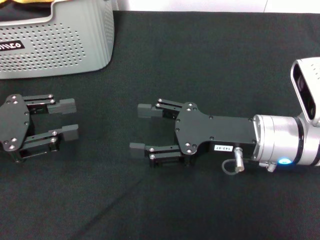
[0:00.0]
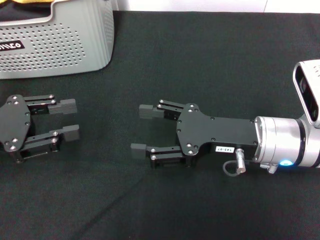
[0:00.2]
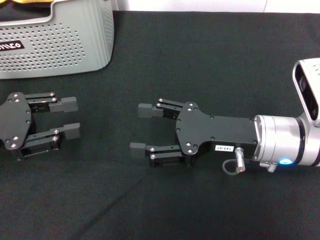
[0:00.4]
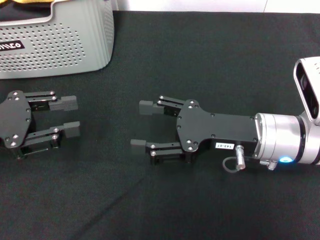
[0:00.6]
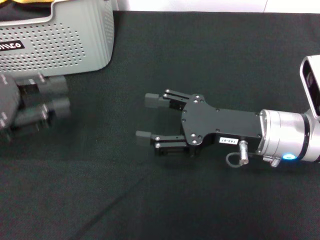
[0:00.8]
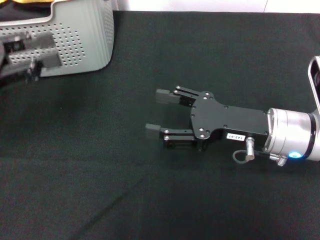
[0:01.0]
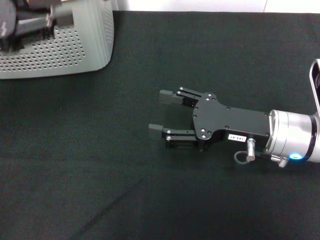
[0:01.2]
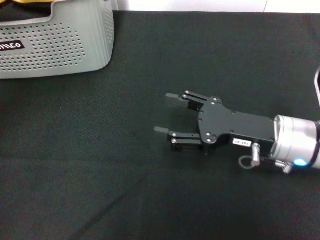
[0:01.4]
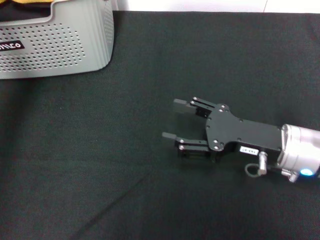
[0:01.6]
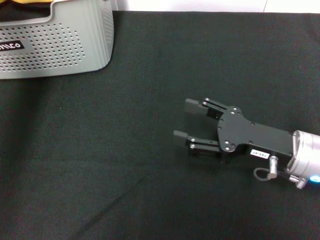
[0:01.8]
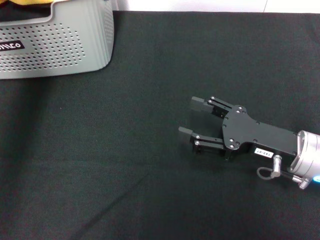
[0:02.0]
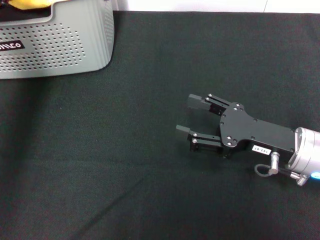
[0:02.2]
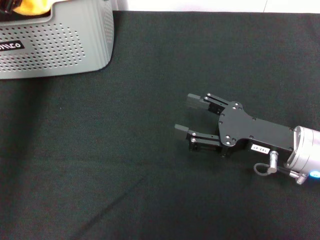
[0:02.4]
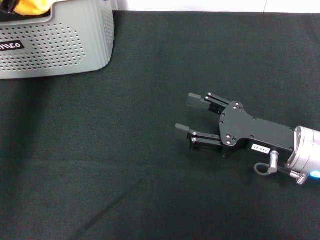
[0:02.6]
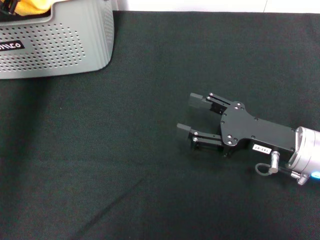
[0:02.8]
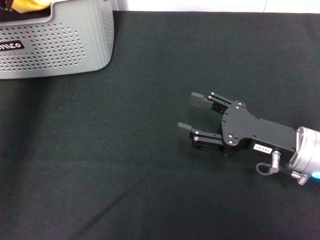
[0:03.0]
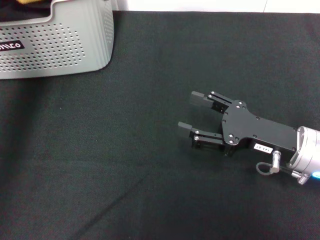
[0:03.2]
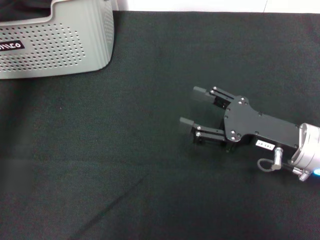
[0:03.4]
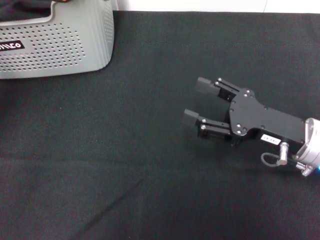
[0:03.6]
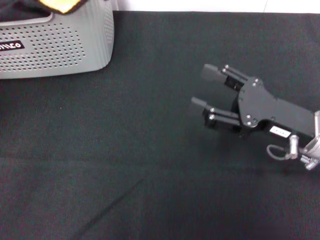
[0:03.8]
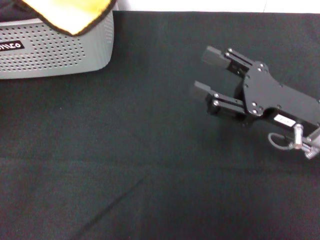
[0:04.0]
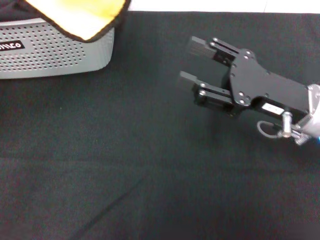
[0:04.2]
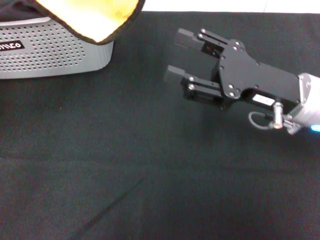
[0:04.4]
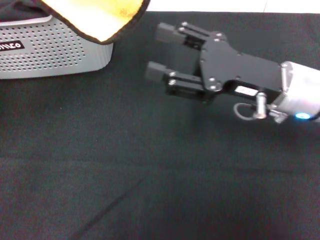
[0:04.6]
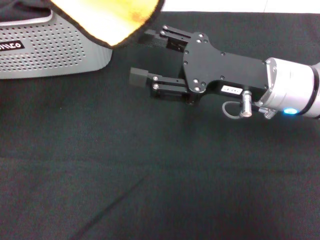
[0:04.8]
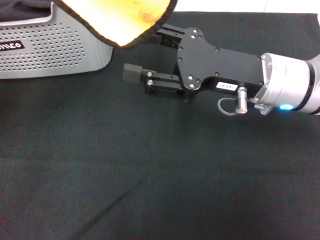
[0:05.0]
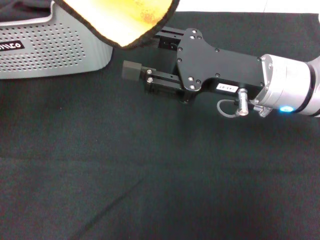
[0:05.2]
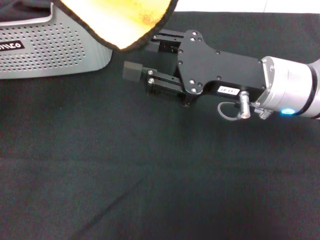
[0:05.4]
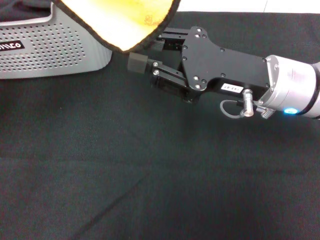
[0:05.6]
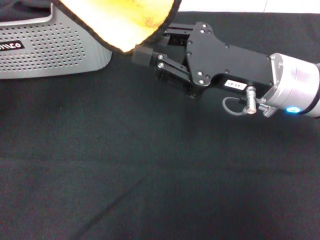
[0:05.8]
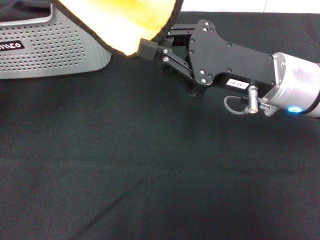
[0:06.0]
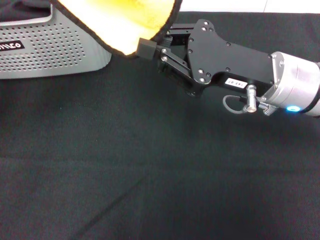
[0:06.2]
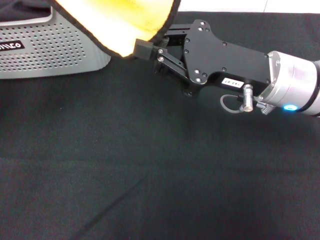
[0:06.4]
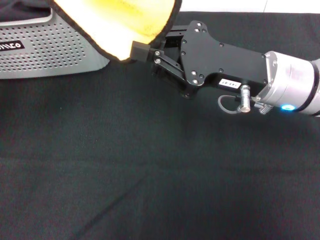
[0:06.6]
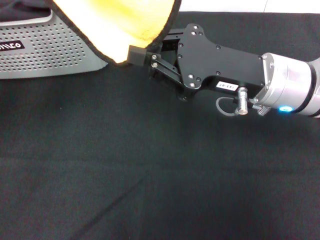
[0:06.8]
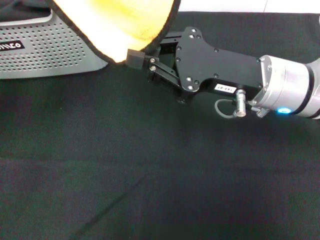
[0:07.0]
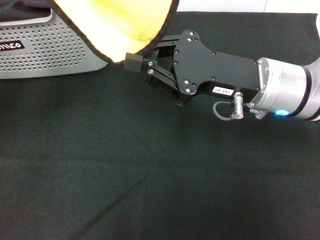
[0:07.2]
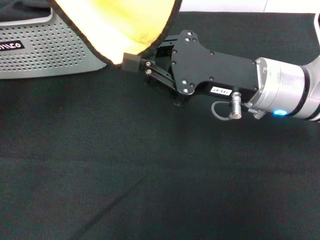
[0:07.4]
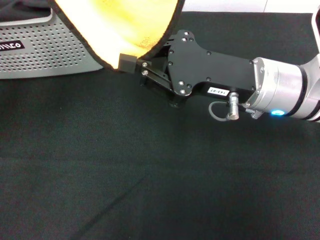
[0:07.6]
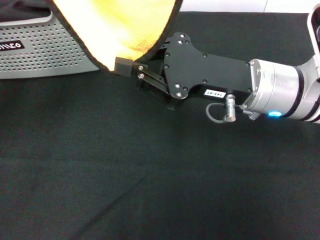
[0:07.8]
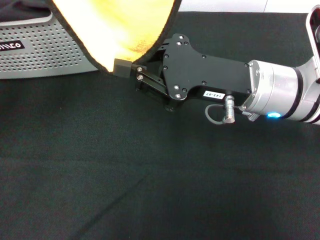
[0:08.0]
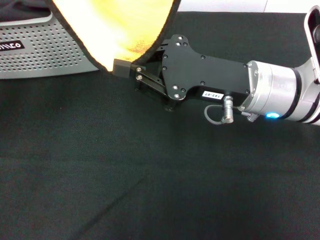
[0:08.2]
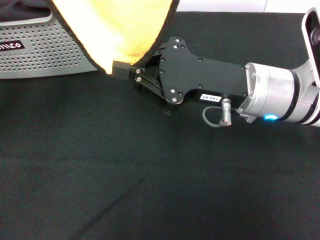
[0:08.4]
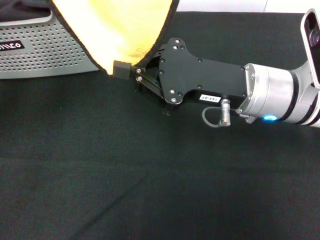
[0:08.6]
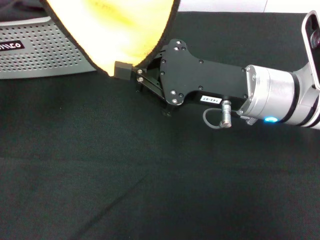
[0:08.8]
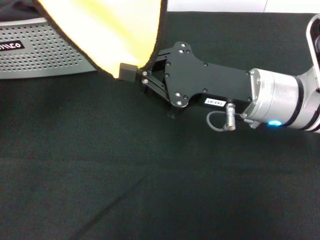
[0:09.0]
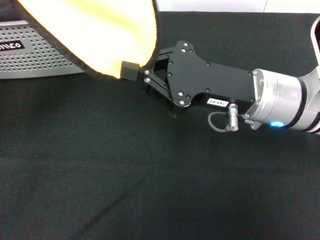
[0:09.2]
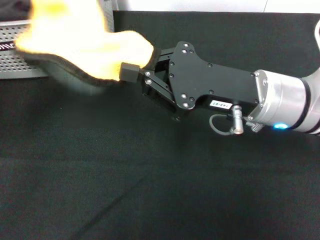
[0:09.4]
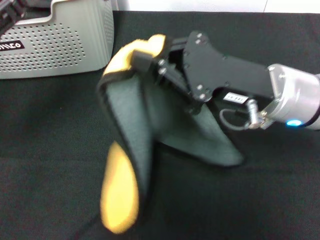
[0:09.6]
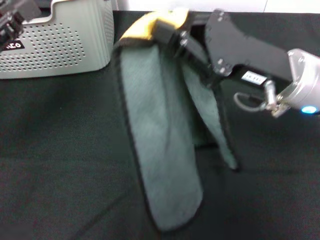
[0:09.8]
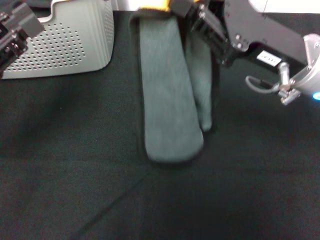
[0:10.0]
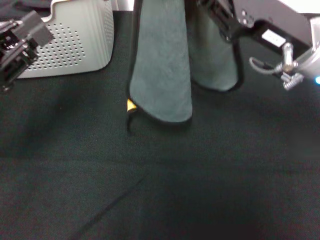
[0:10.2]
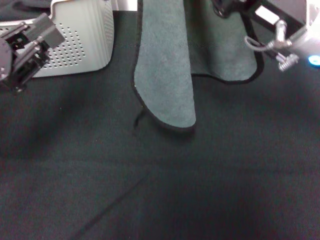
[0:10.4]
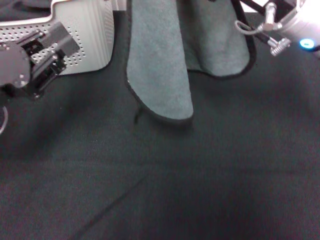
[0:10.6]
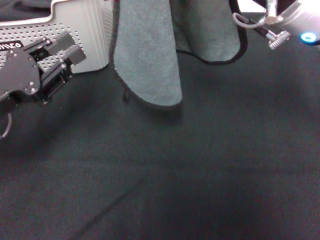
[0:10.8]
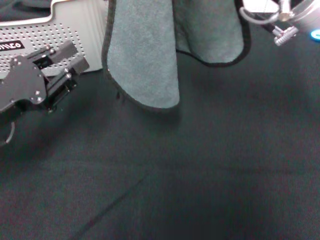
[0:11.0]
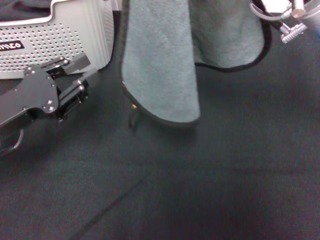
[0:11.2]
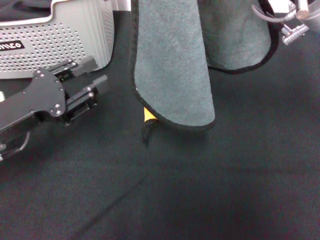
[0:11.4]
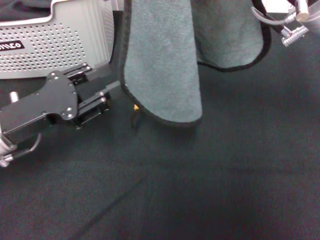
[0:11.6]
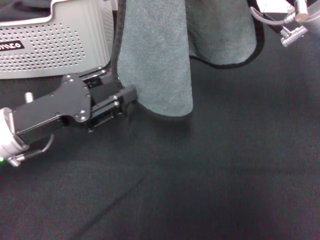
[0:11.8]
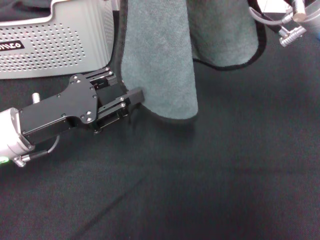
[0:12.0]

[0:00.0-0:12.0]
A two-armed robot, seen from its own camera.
Task of the whole recording: pick up the towel from the storage box and lay it flat on the black tablecloth.
Step, 0:00.0 to 0:02.6: Pick up a towel with the left gripper.
Step, 0:02.8 to 0:08.8: Spread the towel flat with the left gripper.
0:00.0 to 0:01.6: The left gripper goes about 20 cm upward and forward.
0:01.6 to 0:03.0: The left gripper closes its fingers.
0:03.0 to 0:04.4: The left gripper shifts some 10 cm backward. The right gripper shifts about 5 cm upward.
0:04.4 to 0:06.0: The right gripper closes.
0:06.0 to 0:09.0: The grippers make only small movements.
0:09.0 to 0:10.4: The right gripper moves roughly 5 cm, while the left gripper travels downward by about 10 cm, and opens its fingers.
0:10.4 to 0:12.0: The left gripper moves to the right, about 5 cm.

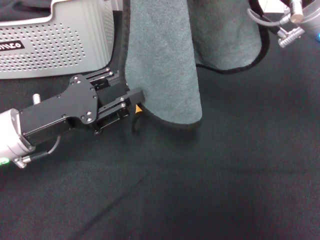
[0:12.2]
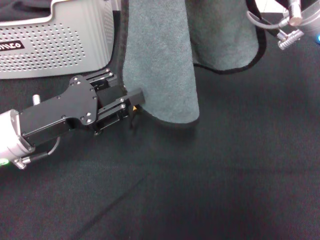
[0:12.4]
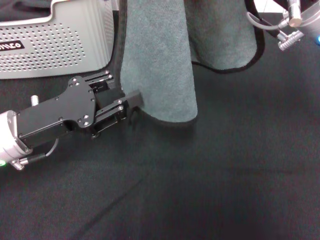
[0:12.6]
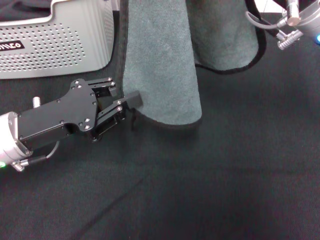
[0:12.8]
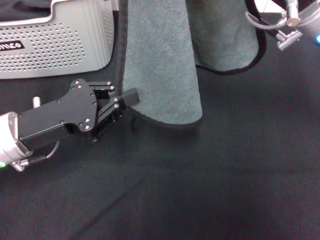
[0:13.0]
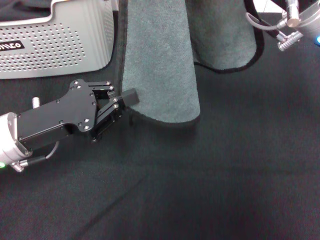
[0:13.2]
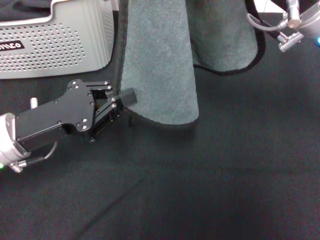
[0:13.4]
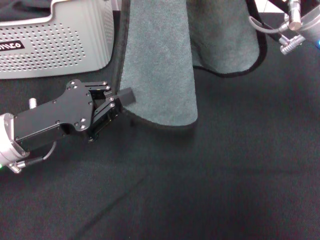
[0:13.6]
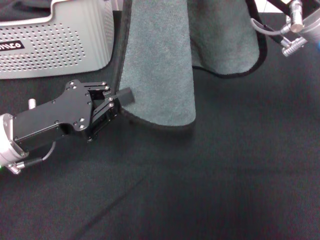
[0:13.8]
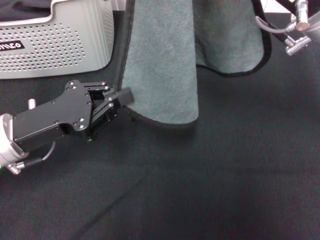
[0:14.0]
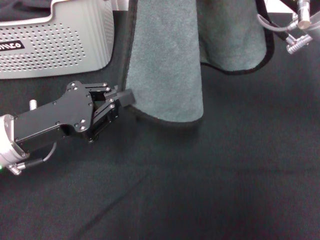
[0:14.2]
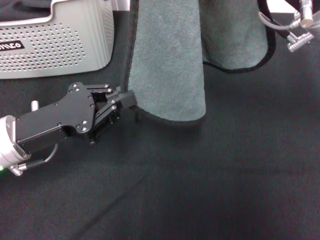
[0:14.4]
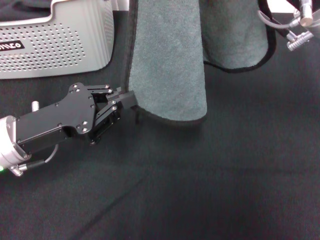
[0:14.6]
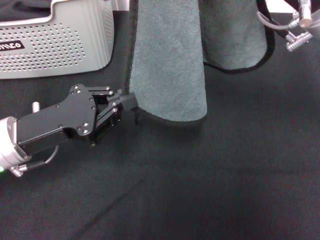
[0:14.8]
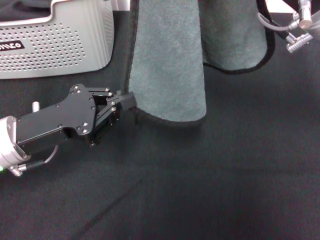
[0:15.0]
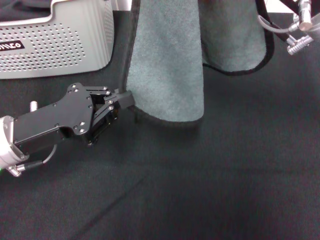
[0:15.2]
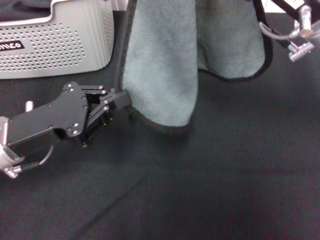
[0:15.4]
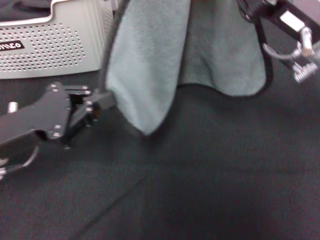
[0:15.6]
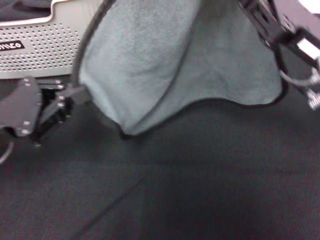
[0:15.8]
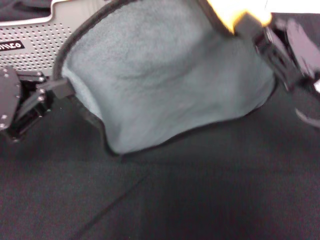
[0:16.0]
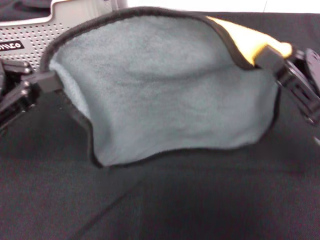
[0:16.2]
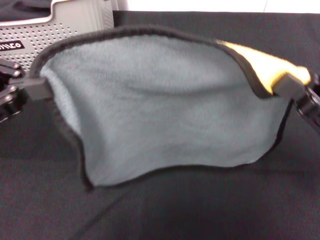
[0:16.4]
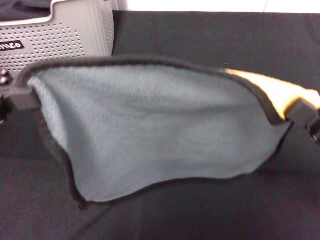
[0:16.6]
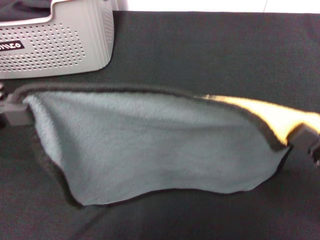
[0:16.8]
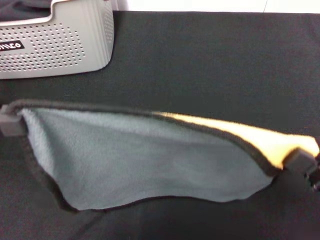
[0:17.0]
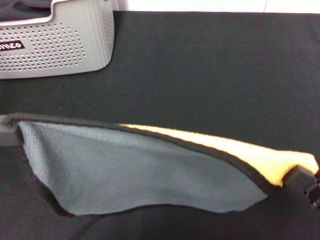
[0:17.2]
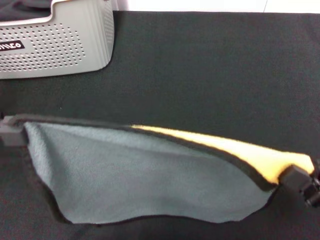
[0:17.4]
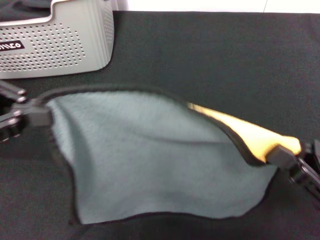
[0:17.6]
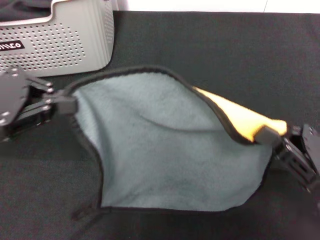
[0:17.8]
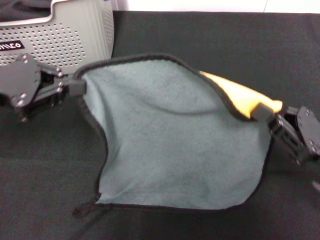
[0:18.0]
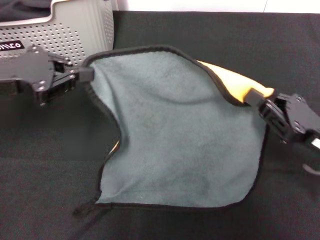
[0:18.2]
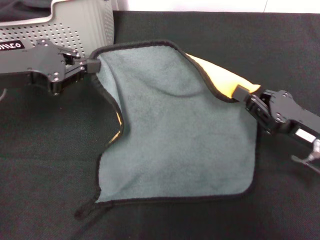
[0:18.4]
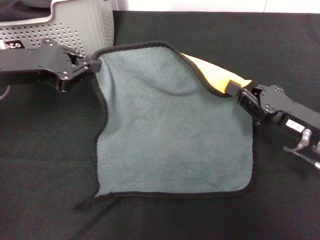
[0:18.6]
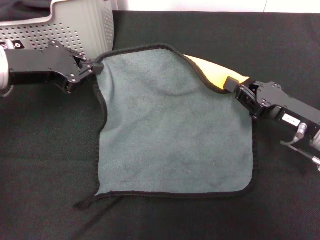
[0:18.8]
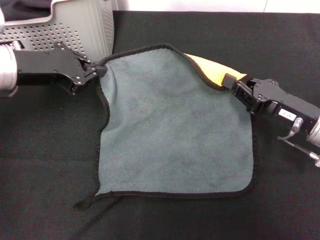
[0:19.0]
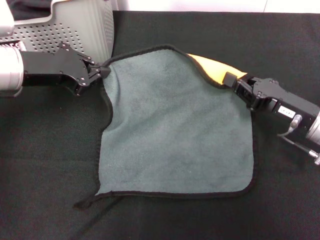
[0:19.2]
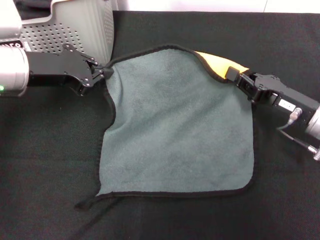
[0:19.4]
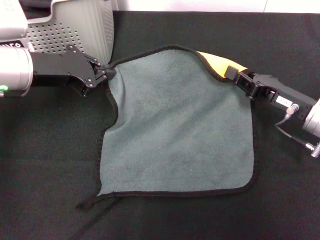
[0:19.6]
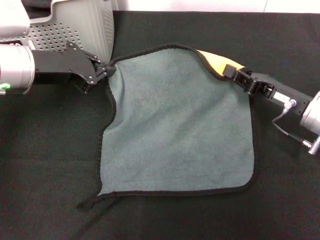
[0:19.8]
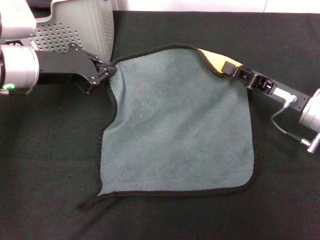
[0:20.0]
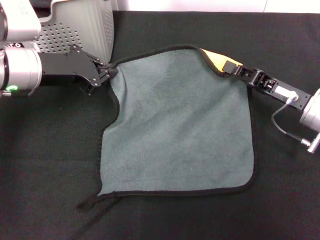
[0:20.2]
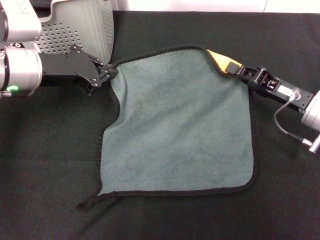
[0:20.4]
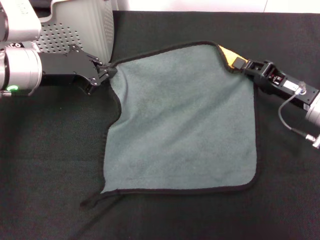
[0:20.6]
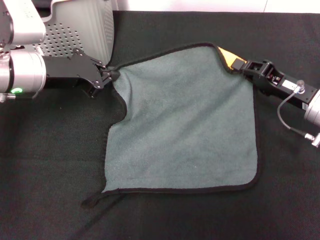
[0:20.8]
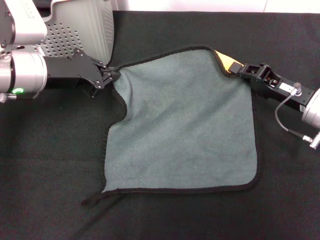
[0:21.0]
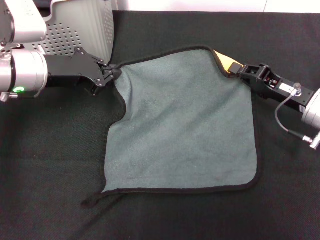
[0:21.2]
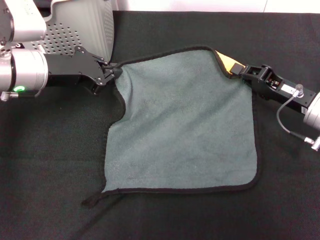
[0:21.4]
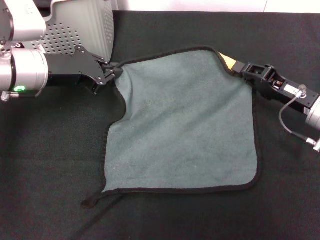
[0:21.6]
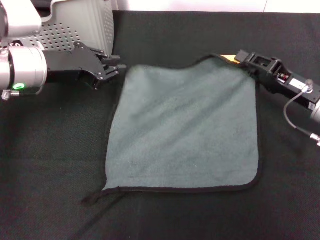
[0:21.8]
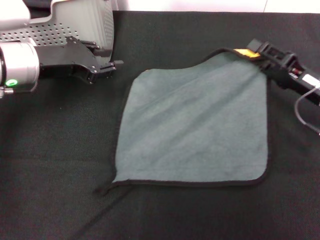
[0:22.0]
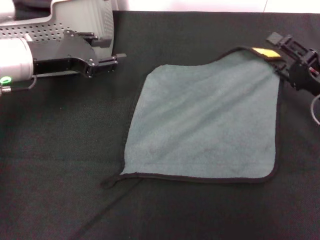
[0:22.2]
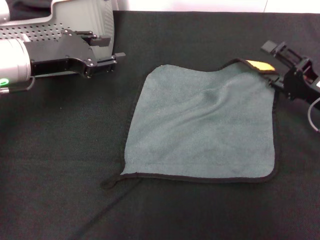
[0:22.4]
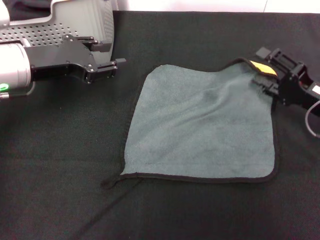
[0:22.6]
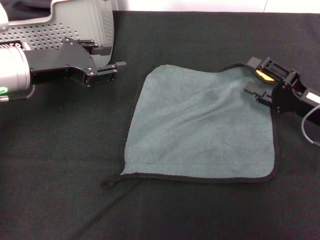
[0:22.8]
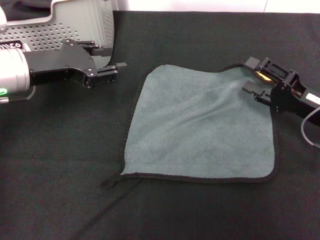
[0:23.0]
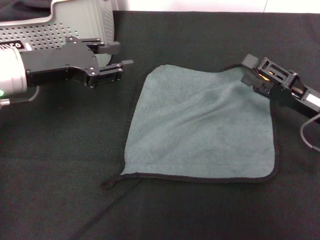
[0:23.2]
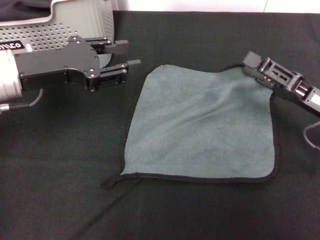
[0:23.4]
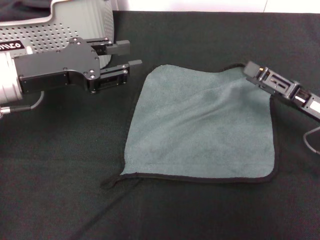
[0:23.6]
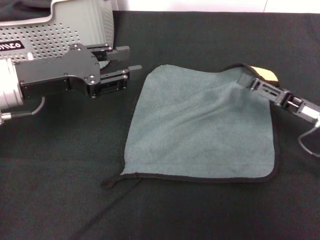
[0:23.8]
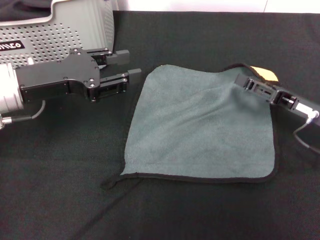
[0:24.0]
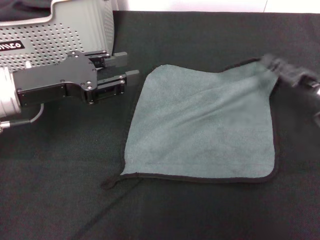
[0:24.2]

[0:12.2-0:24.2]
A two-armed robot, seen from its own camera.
Task of the whole recording: pick up the towel from the storage box and lay it flat on the black tablecloth.
0:12.2 to 0:13.8: The left gripper closes up.
0:13.8 to 0:15.2: The two grippers keep their place.
0:15.2 to 0:16.6: The right gripper goes approximately 20 cm backward, downward and to the right. Meanwhile the left gripper travels upward and to the left by roughly 15 cm.
0:16.6 to 0:18.2: The left gripper moves forward, approximately 5 cm. The right gripper travels backward and back again, approximately 5 cm each way.
0:18.2 to 0:19.8: The left gripper heads forward and to the right, covering approximately 10 cm, while the right gripper moves forward, approximately 10 cm.
0:21.2 to 0:22.6: The left gripper opens its fingers. Meanwhile the right gripper opens up.
